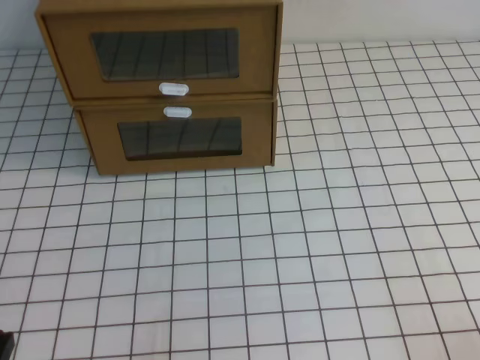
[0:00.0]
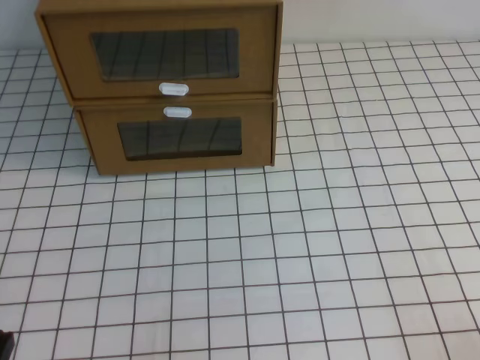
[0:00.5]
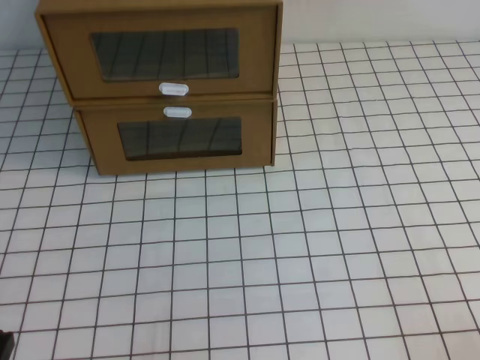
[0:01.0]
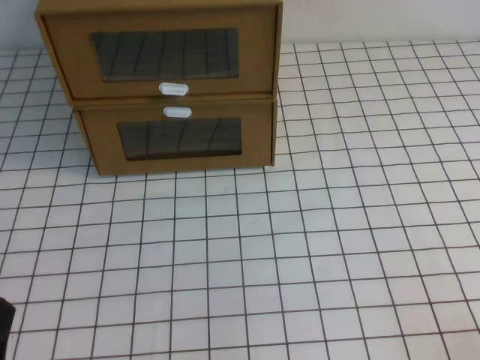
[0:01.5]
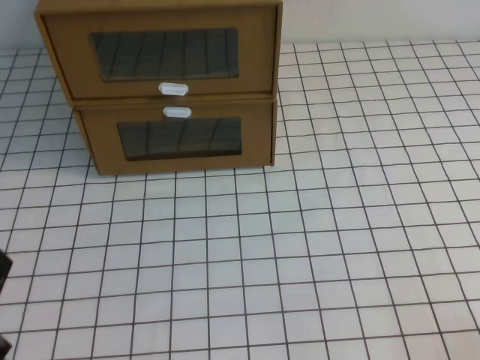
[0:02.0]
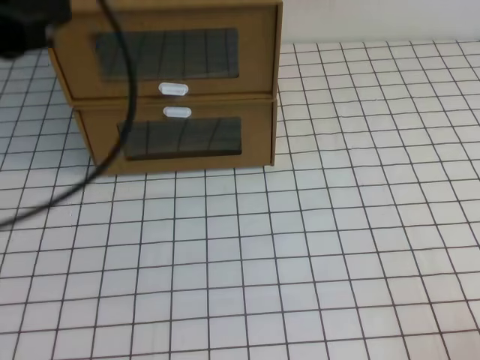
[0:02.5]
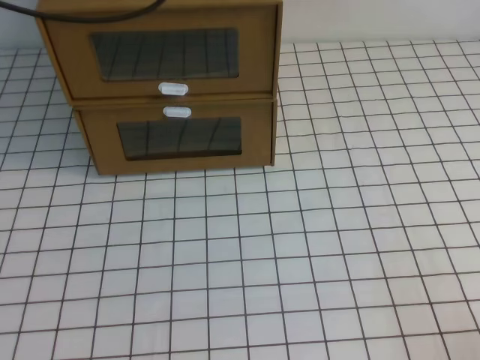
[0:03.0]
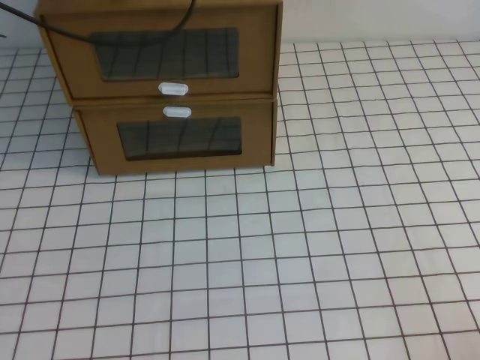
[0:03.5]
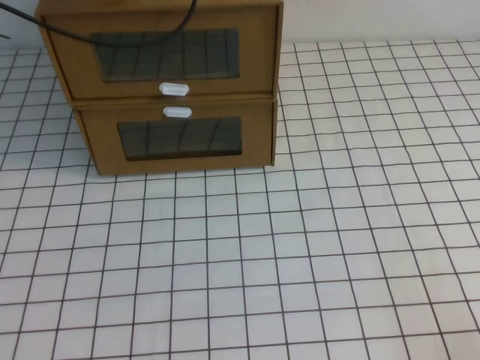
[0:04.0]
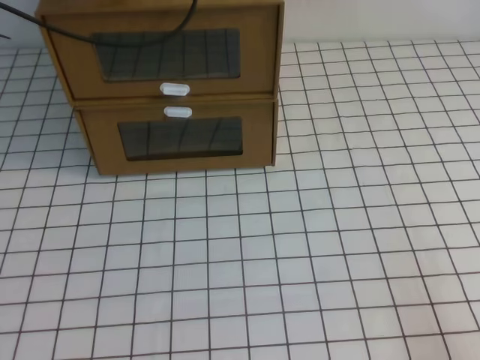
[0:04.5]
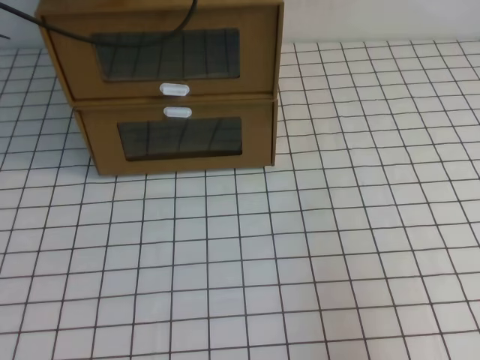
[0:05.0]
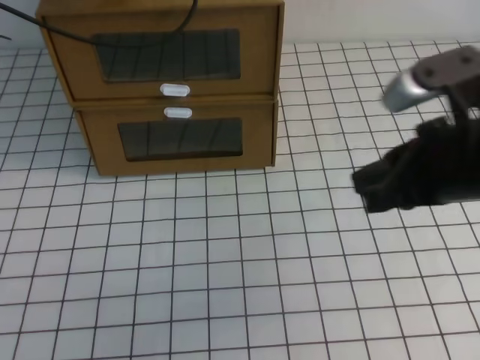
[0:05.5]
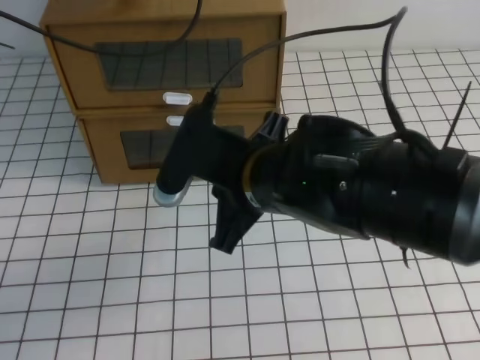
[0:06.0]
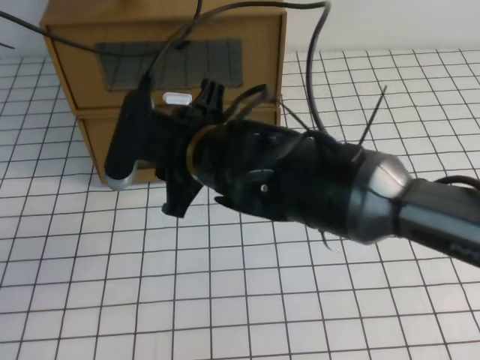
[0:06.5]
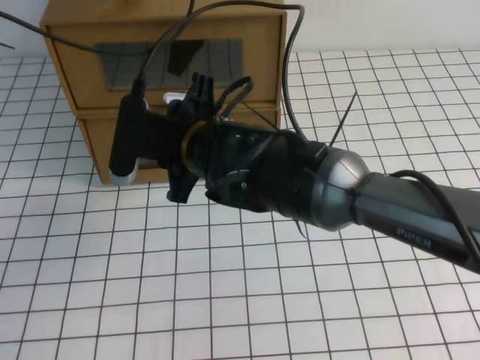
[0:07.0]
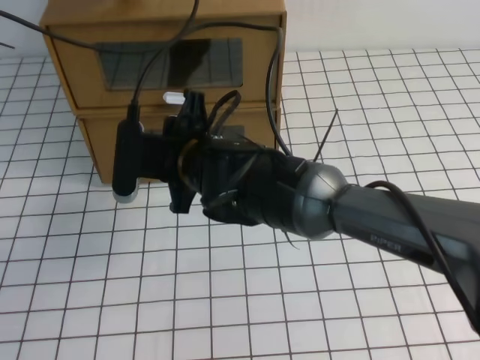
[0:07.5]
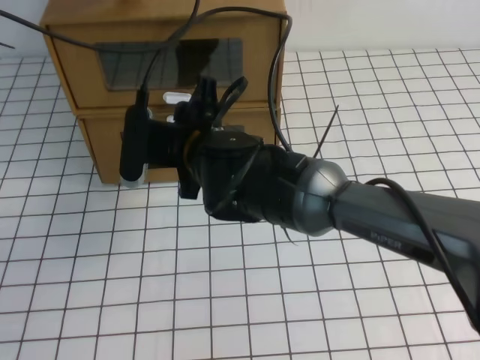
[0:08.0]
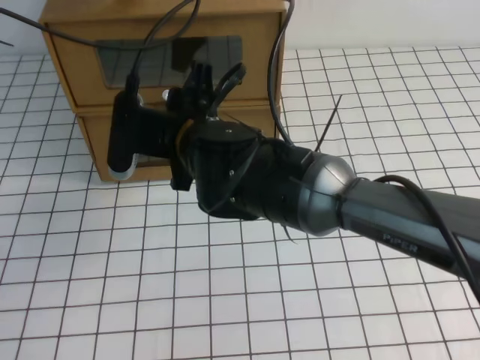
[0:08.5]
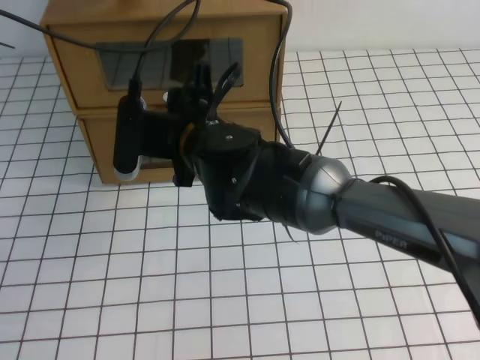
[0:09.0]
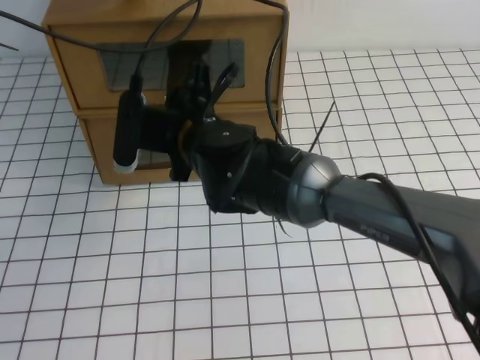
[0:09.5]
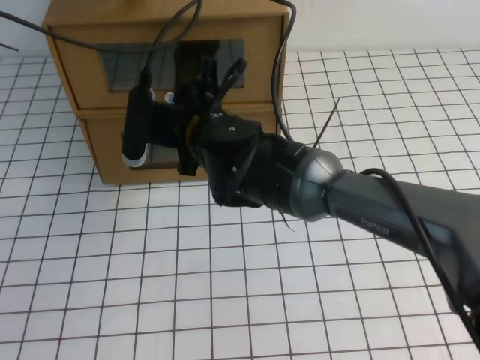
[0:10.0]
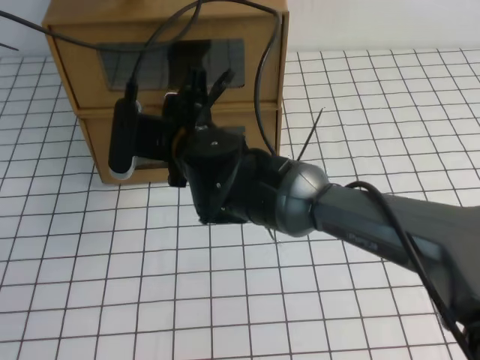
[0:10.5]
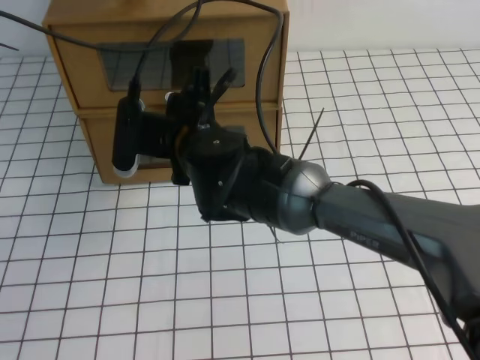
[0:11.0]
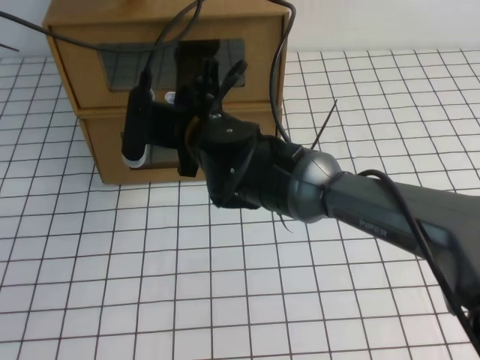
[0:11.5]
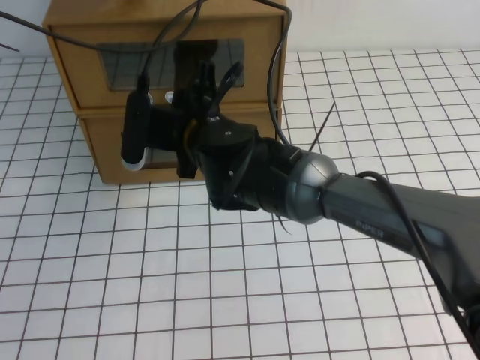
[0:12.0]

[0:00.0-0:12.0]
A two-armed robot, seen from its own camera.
Task of the whole recording: open the shoebox on the white tablecloth.
0:02.0 to 0:04.0: The left gripper heads forward, covering some 40 cm.
0:04.0 to 0:06.0: The right gripper is displaced to the left, forward and upward by some 35 cm.
0:06.0 to 0:08.0: The right gripper shifts about 10 cm forward and to the left, and opens its fingers.
0:08.0 to 0:12.0: The grippers move only a little.

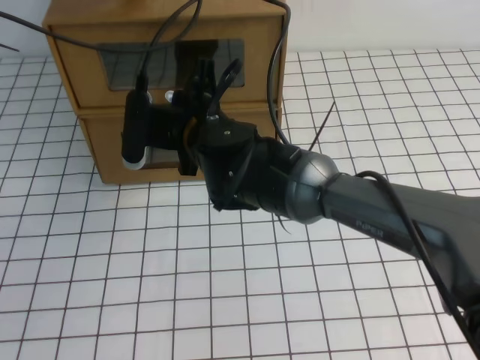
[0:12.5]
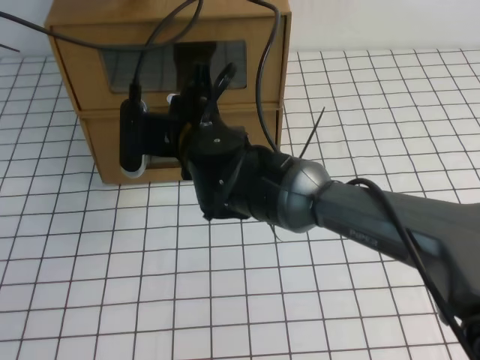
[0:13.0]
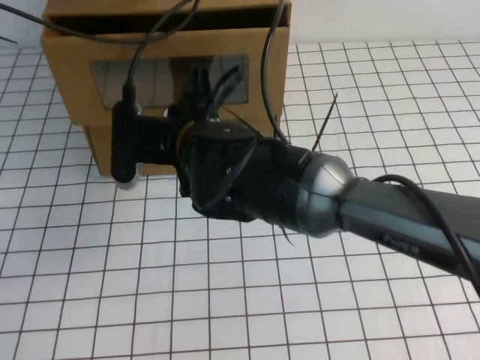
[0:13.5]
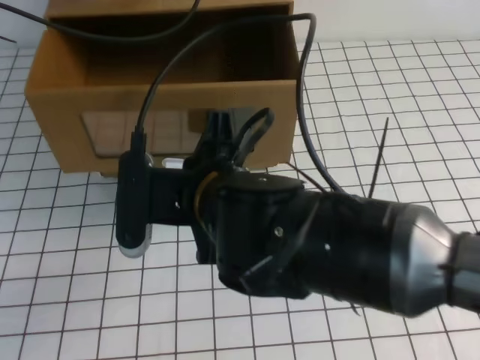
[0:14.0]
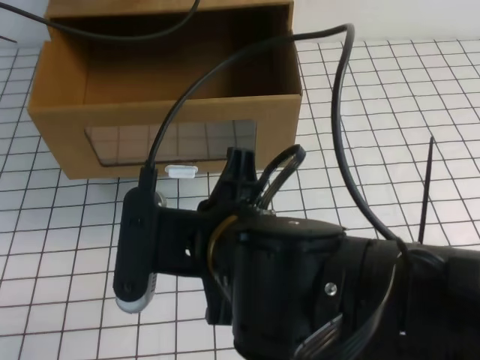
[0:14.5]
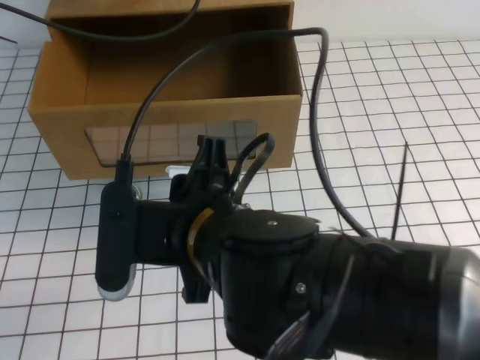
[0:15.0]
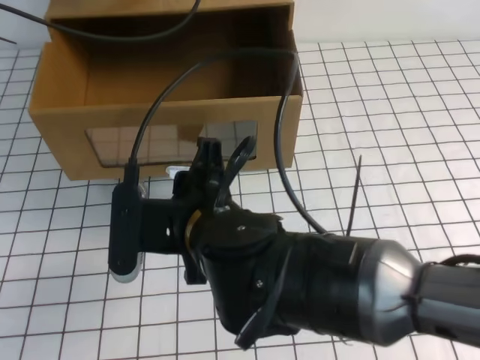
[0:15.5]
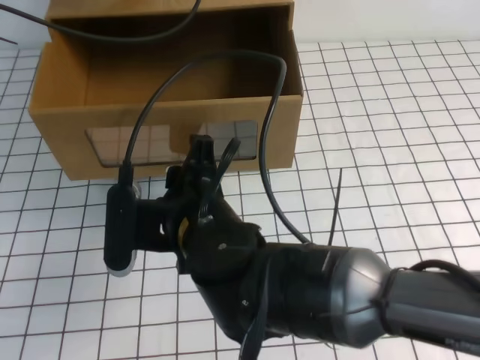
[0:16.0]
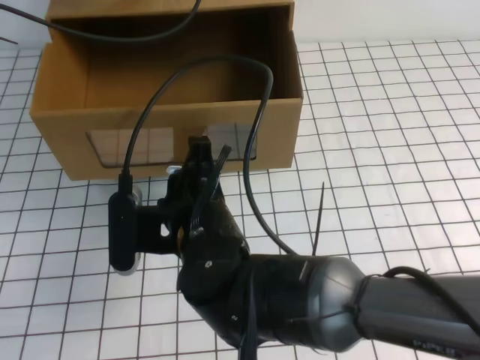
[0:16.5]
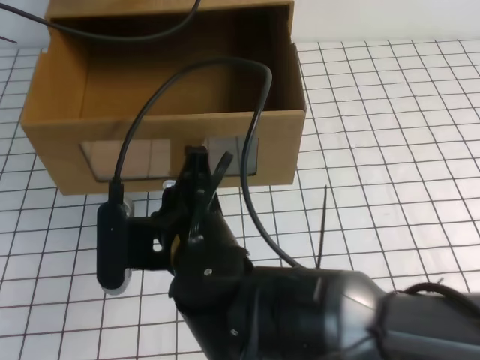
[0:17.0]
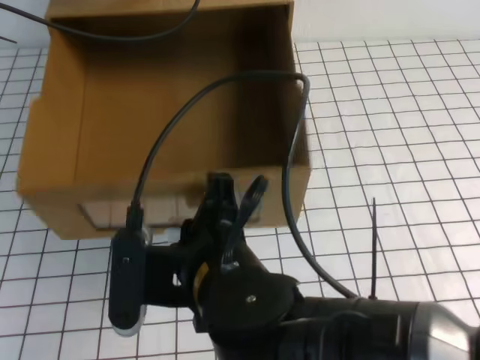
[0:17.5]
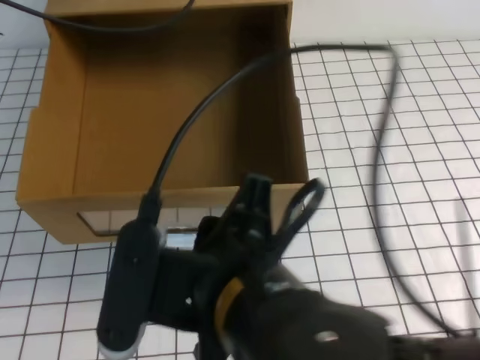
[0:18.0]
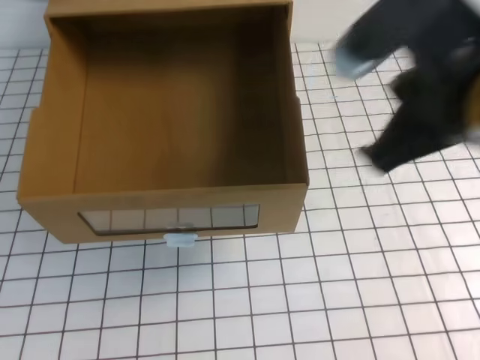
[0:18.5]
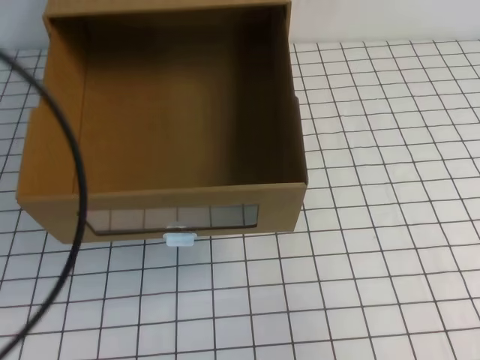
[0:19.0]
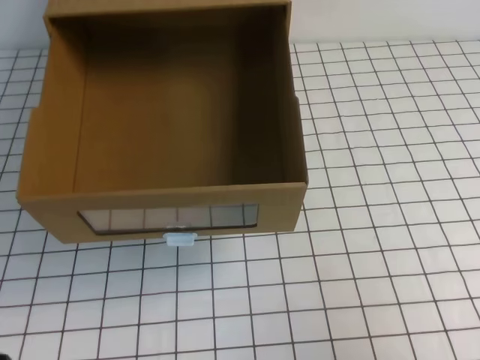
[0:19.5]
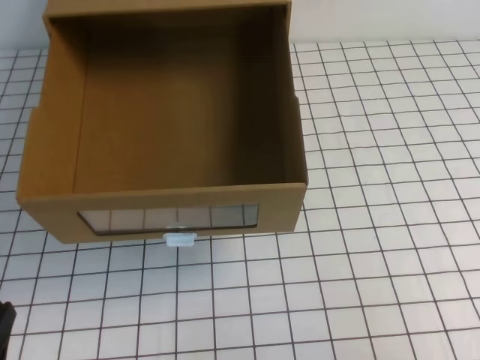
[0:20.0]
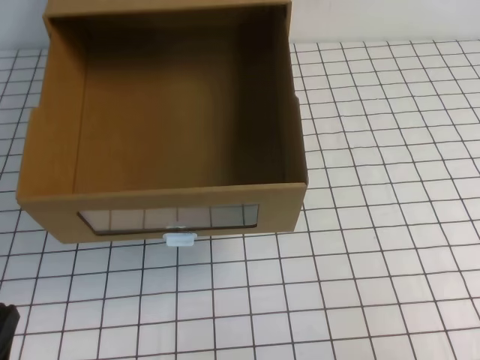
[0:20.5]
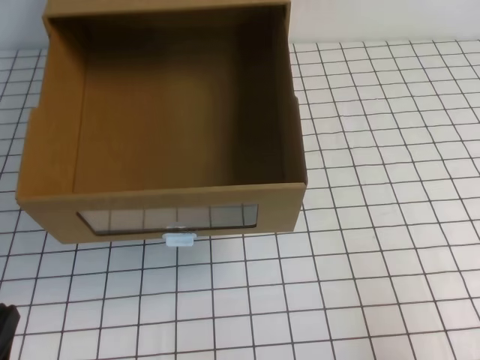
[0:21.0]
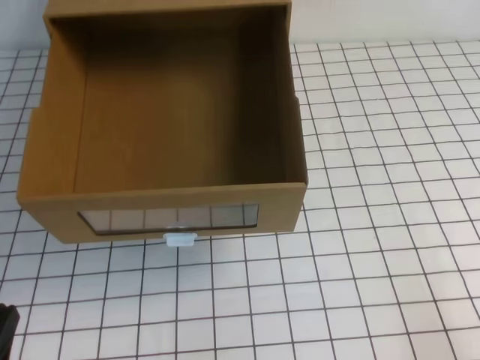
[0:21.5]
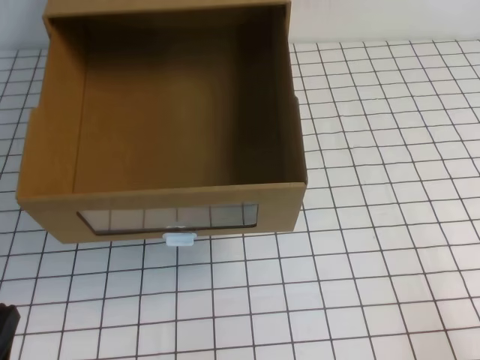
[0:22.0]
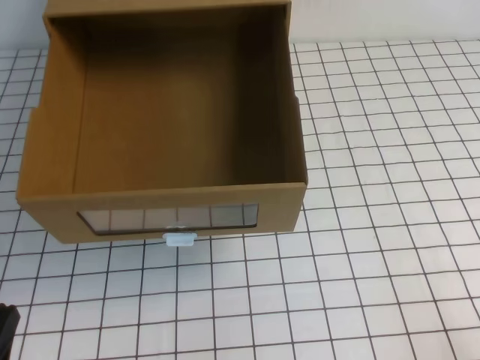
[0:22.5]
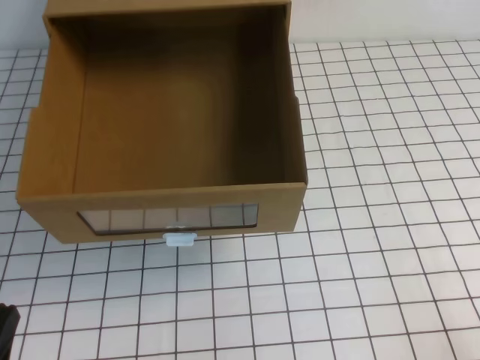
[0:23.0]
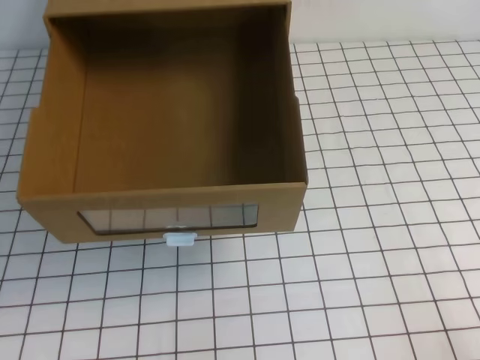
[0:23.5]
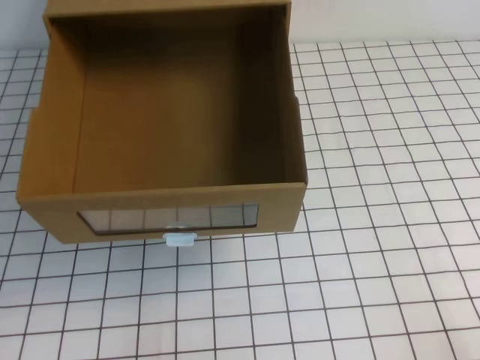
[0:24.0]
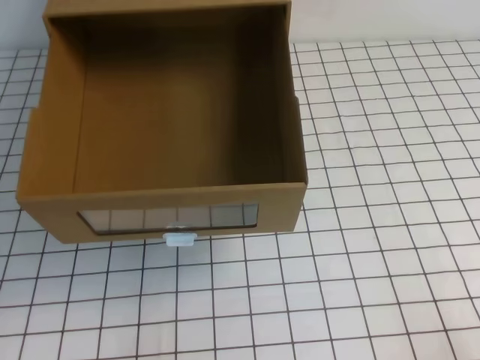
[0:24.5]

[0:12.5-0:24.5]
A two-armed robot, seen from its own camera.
Task of the whole recording: open the shoebox on the white tablecloth.
Step, 0:12.5 to 0:24.5: Open the shoe box.
0:12.5 to 0:14.5: The right gripper is displaced backward by approximately 20 cm.
0:14.5 to 0:16.5: The right gripper is displaced downward and forward by some 10 cm, and opens, then closes again.
0:16.5 to 0:18.5: The right gripper moves to the right and upward, approximately 25 cm. The left gripper moves backward and upward, some 15 cm.
0:18.5 to 0:20.5: The left gripper is displaced downward and backward by some 40 cm. The right gripper shifts about 20 cm to the right, downward and backward.

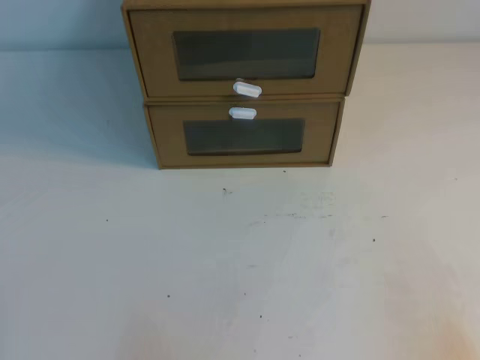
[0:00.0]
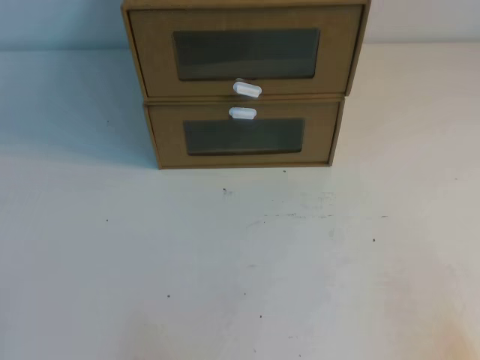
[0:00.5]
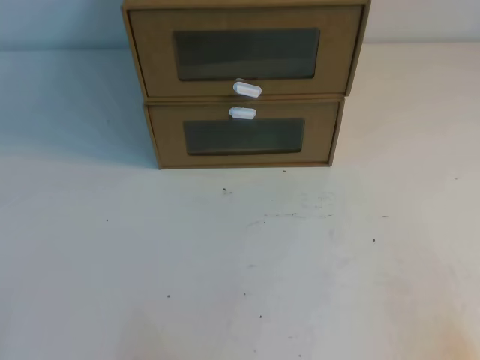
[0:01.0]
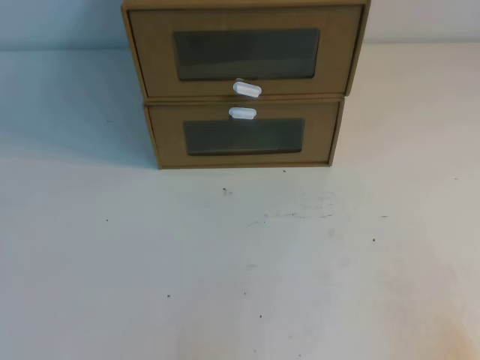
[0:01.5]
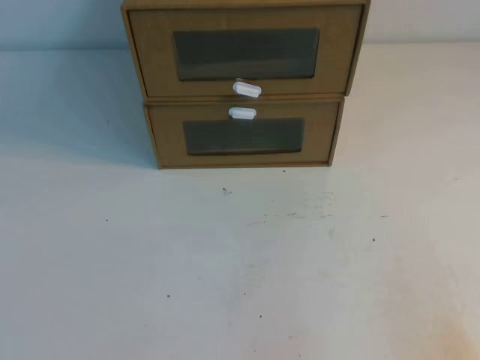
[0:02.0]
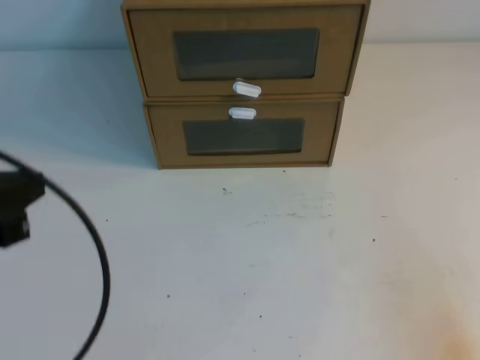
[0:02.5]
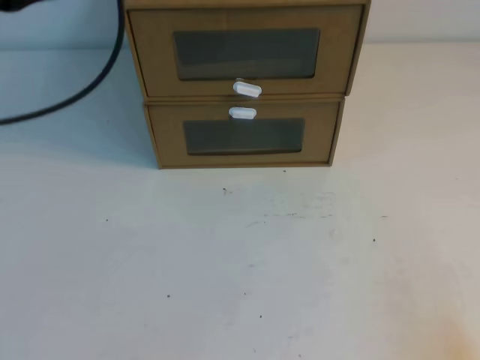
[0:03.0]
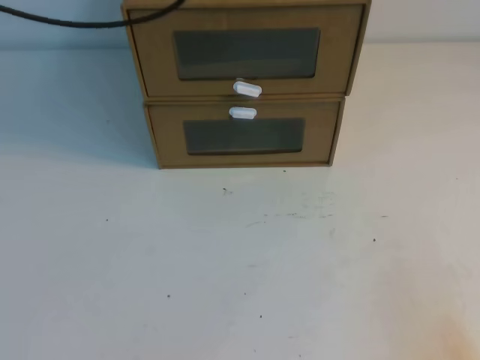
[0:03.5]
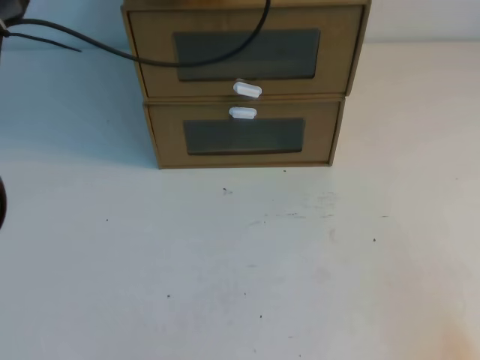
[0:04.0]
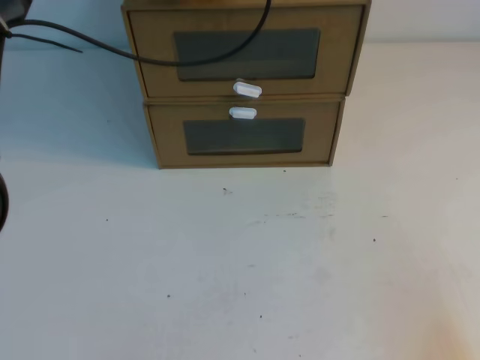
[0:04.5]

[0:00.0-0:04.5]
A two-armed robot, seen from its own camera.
Task of the whole recording: open the shoebox on the table.
0:02.0 to 0:04.5: The left gripper heads forward, covering some 40 cm.
